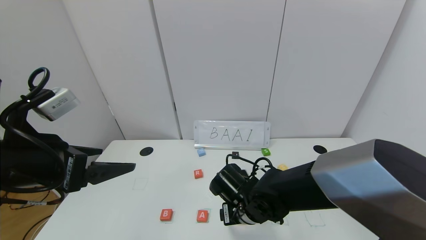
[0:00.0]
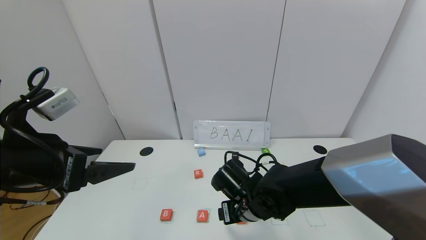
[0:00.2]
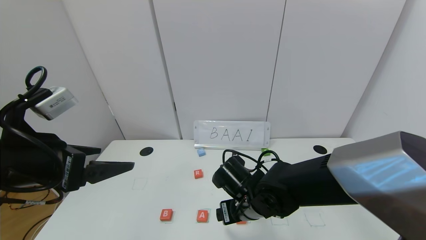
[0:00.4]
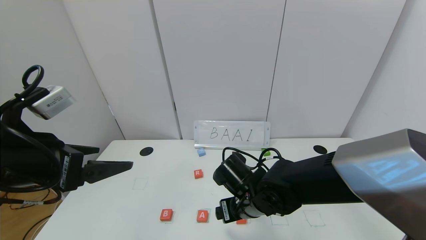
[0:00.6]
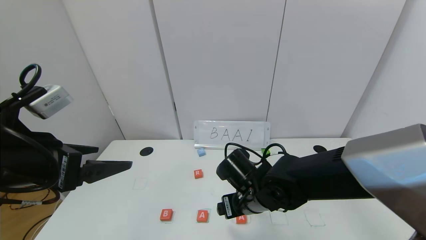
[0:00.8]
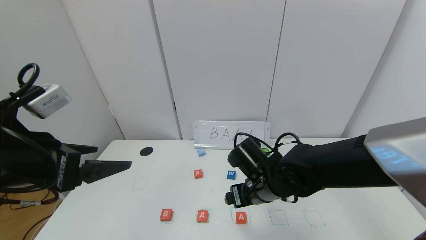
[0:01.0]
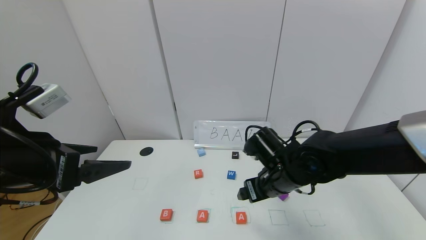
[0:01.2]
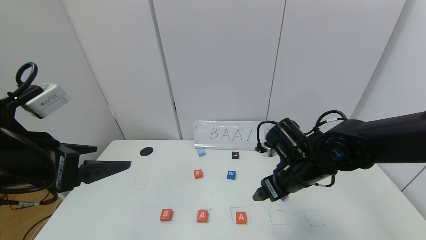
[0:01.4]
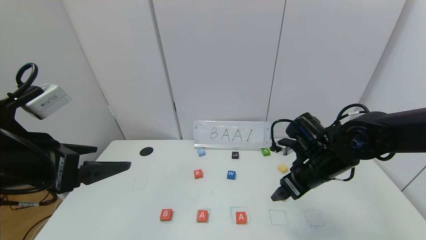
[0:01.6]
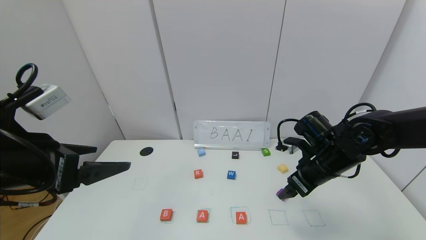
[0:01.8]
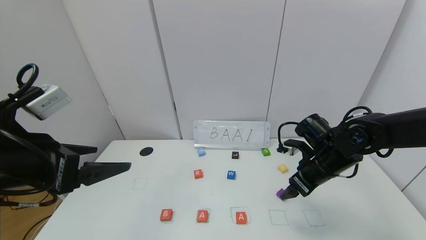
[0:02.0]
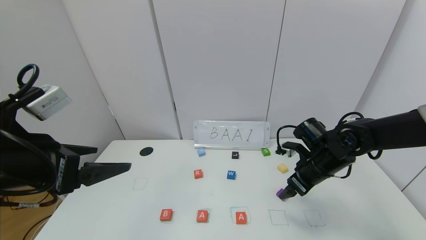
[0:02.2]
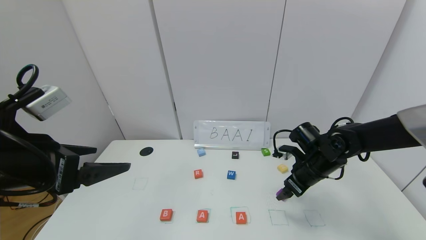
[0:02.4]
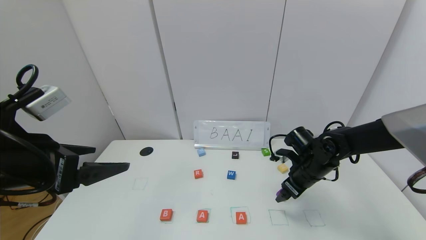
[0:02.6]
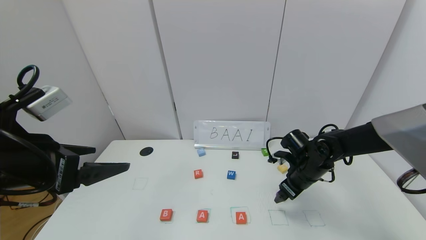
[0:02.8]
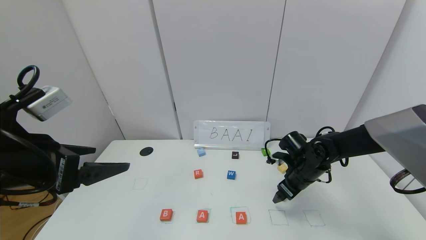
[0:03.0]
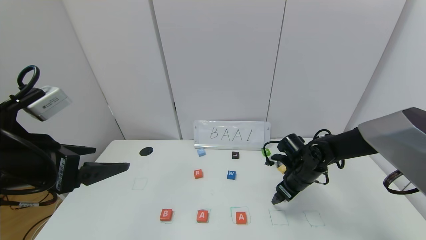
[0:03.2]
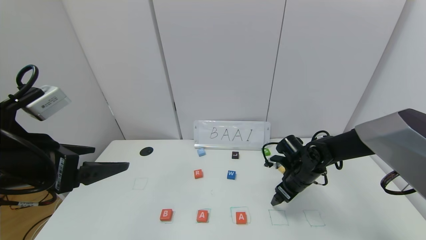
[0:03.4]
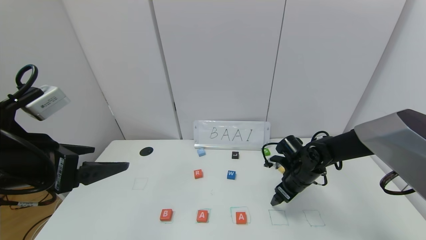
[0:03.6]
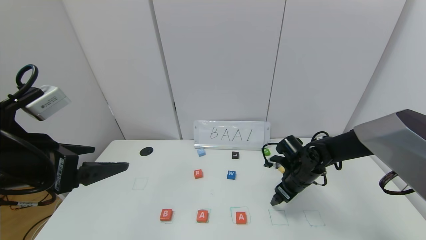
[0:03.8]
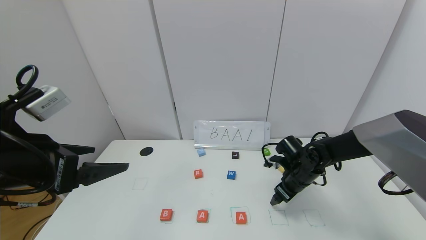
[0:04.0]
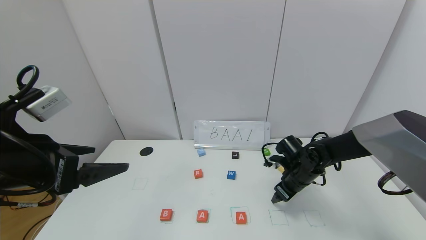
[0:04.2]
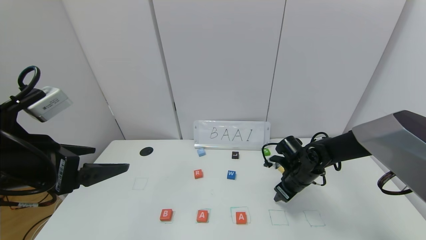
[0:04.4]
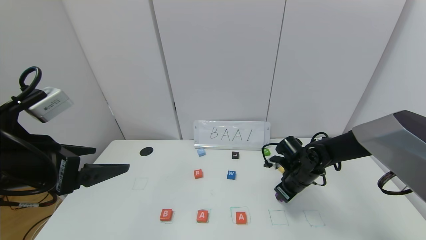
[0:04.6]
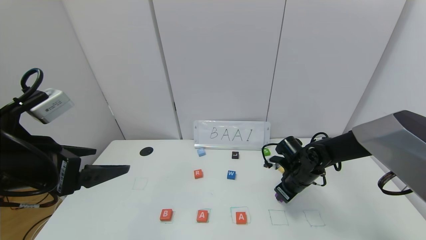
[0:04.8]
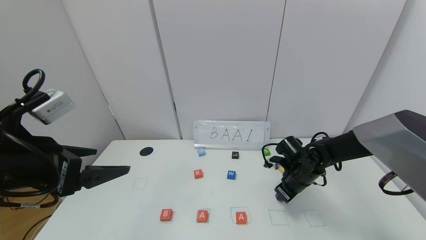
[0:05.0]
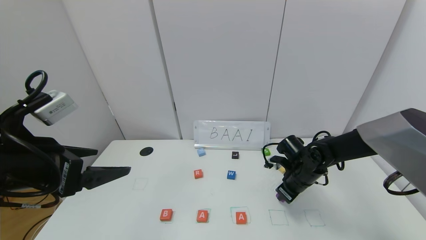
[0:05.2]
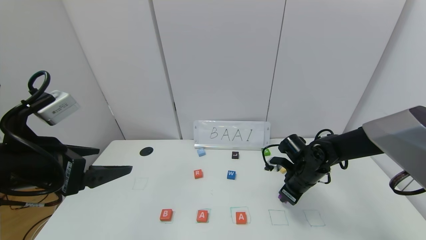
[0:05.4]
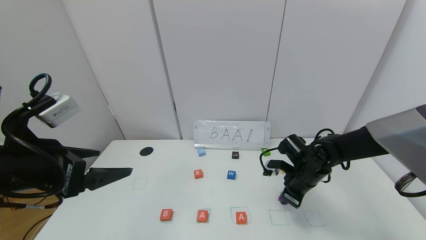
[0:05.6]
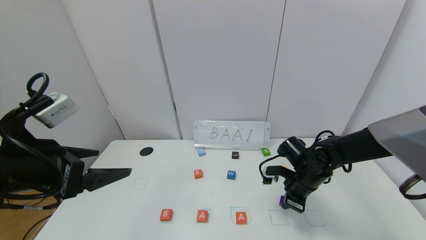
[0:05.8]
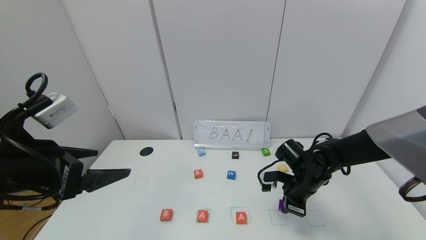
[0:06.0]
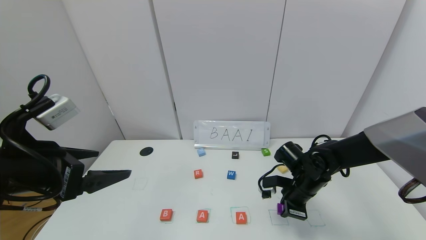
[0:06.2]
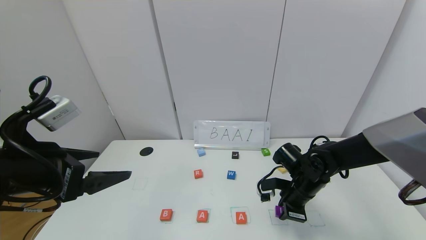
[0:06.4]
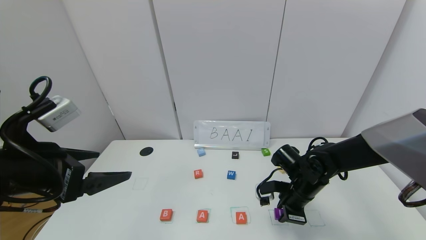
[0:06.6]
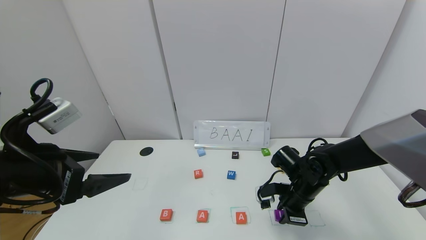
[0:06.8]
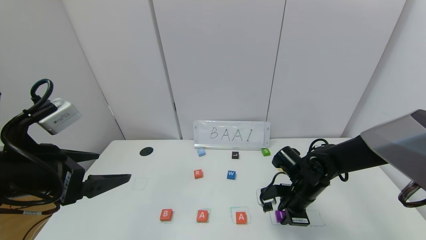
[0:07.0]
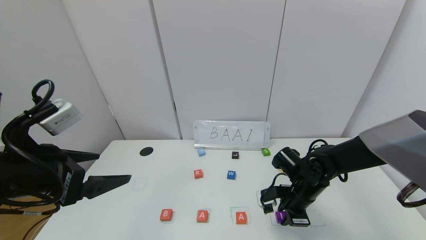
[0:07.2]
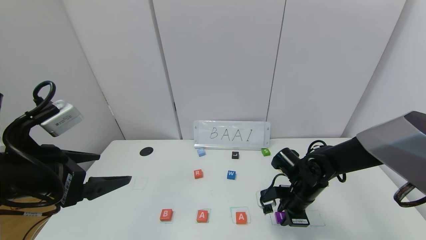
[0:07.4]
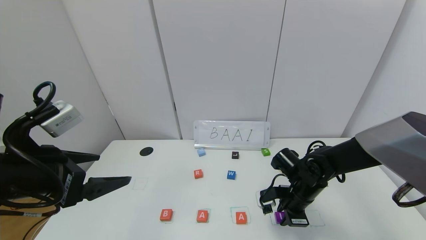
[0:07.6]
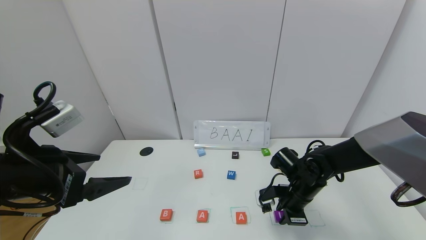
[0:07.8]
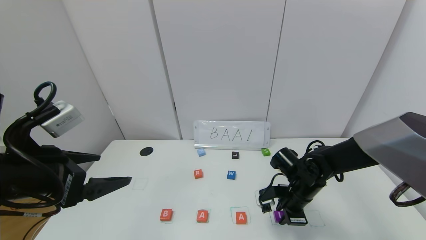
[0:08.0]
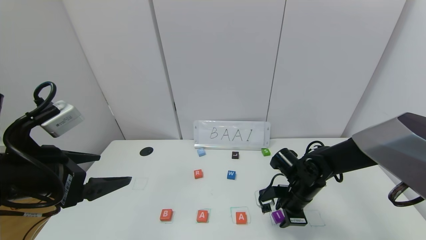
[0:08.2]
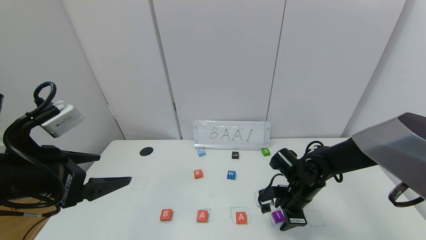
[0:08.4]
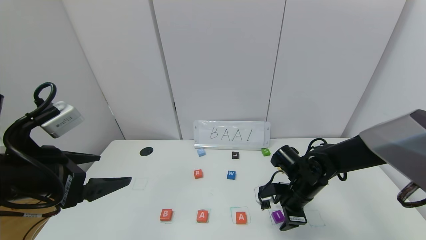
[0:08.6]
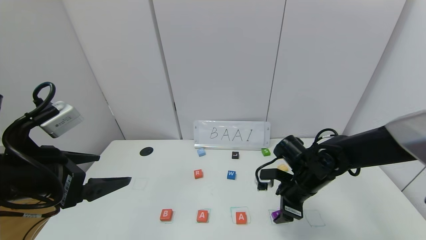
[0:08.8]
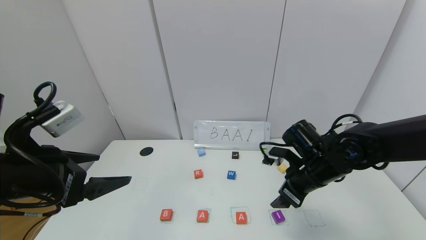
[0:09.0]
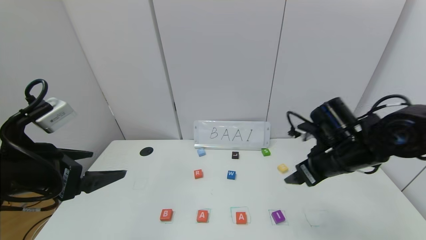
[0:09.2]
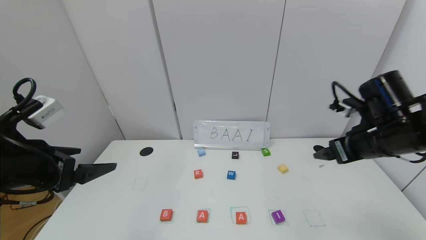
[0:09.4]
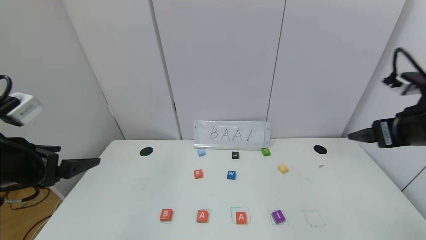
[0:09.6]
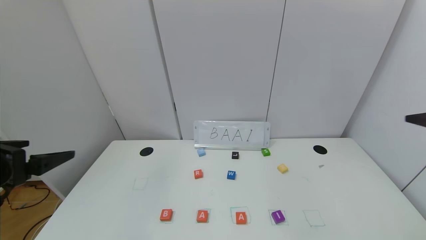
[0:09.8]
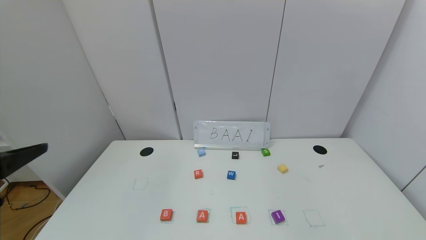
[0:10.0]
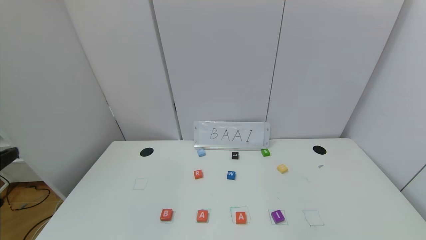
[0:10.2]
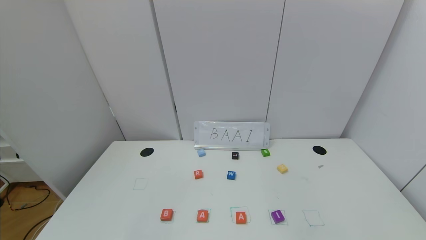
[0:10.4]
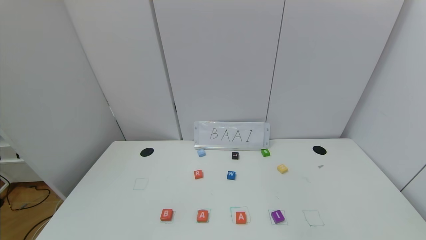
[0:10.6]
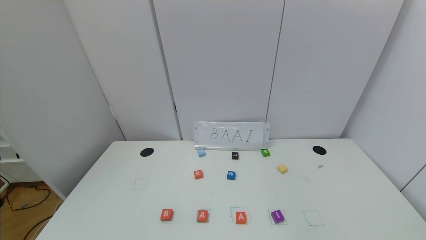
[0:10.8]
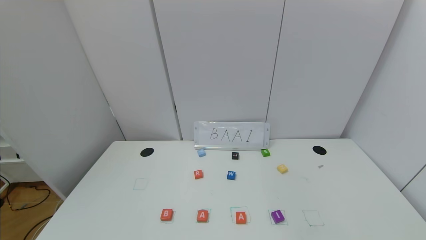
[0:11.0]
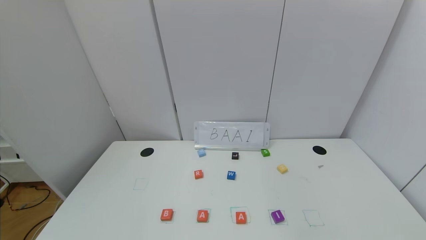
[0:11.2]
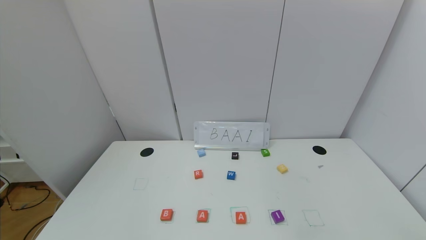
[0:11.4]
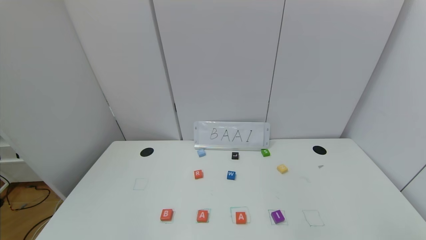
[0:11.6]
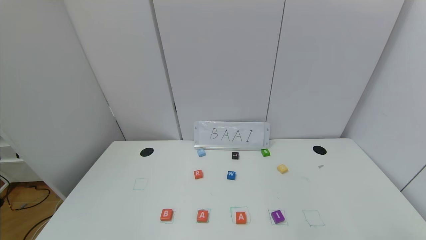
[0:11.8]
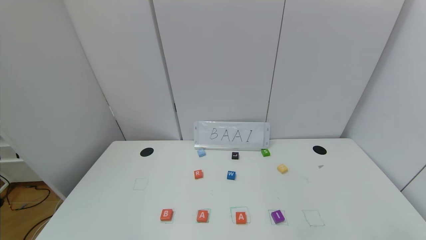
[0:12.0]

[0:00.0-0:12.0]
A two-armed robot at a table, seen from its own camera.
Task of the whole recording: use the gripper to find blocks with the letters b, a, a, and i on the table and arrange them into BAAI, then find r and N and turn the arranged baai into brian.
Step, 0:00.0 to 0:08.6: Place the block I in the fourth location.
0:00.0 to 0:01.6: The right gripper shifts roughly 20 cm to the right and upward.
0:01.6 to 0:03.0: The right gripper travels downward and forward by about 10 cm.
0:03.0 to 0:04.4: The right gripper closes up.
0:04.4 to 0:06.0: The right gripper closes up.
0:06.0 to 0:07.6: The grippers make only small movements.
0:07.6 to 0:09.0: The right gripper goes approximately 10 cm upward, and opens its fingers.
0:09.0 to 0:10.4: The right gripper goes approximately 40 cm backward, upward and to the right, while the left gripper shifts some 15 cm backward.
